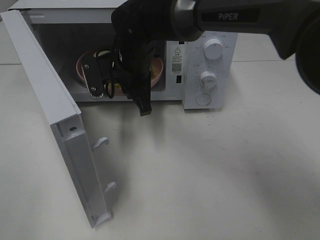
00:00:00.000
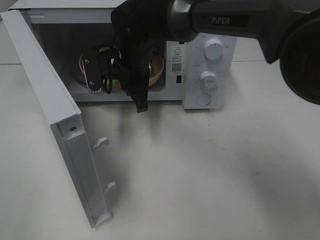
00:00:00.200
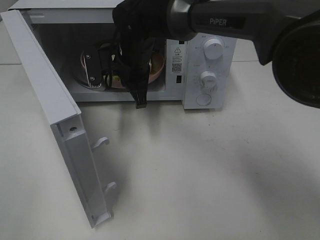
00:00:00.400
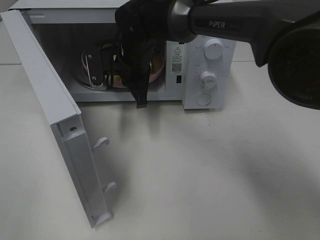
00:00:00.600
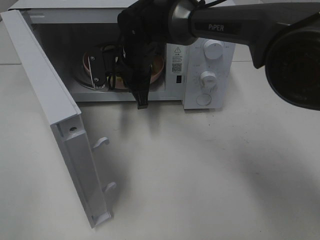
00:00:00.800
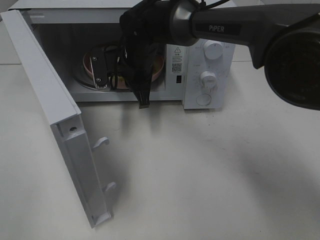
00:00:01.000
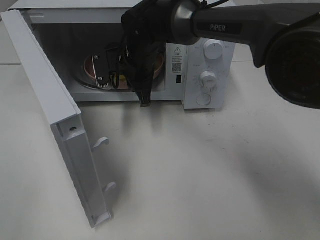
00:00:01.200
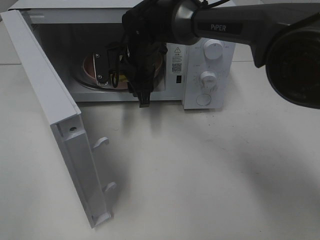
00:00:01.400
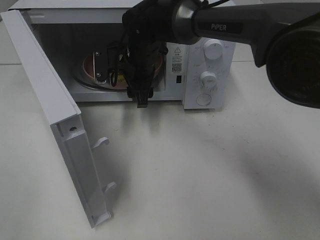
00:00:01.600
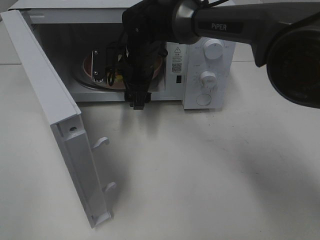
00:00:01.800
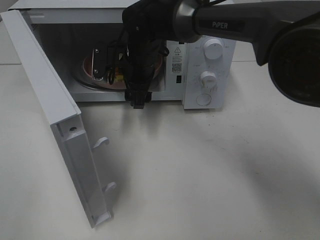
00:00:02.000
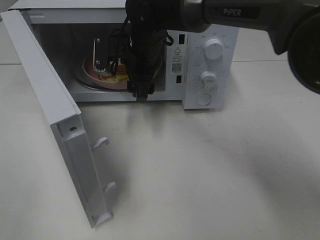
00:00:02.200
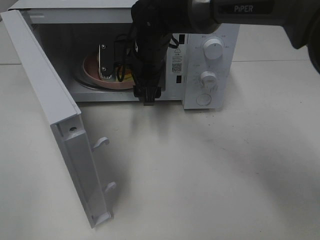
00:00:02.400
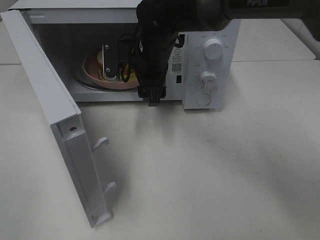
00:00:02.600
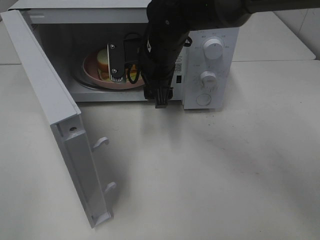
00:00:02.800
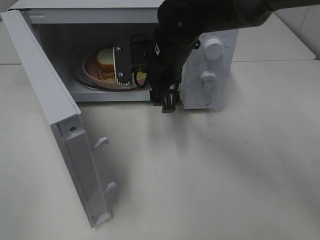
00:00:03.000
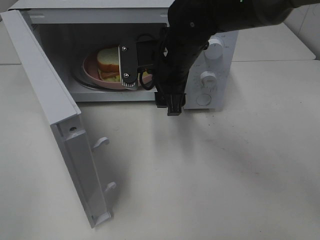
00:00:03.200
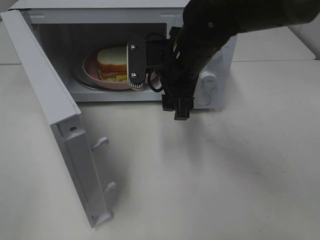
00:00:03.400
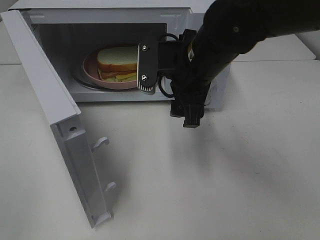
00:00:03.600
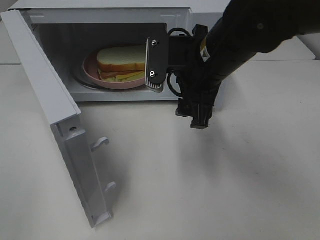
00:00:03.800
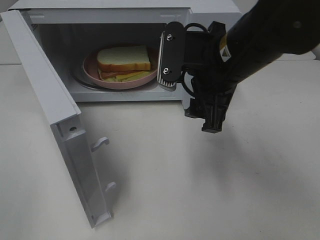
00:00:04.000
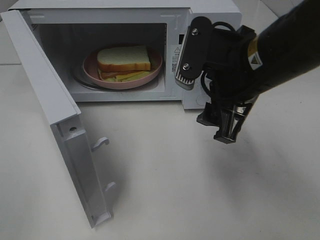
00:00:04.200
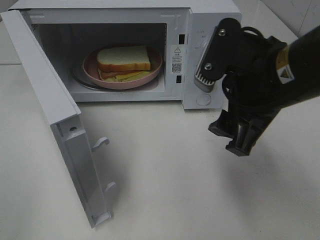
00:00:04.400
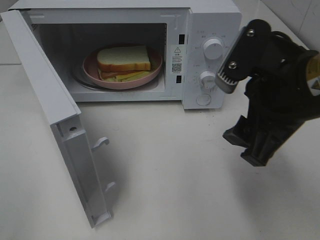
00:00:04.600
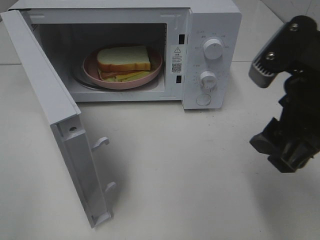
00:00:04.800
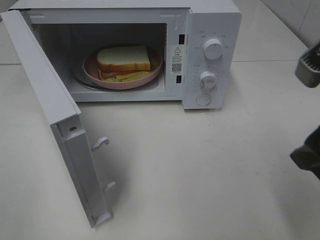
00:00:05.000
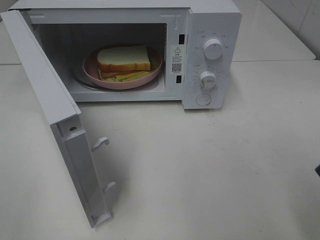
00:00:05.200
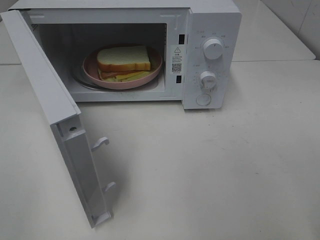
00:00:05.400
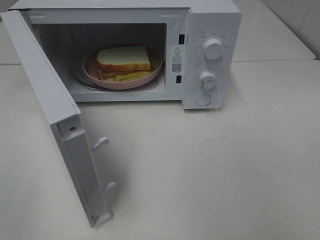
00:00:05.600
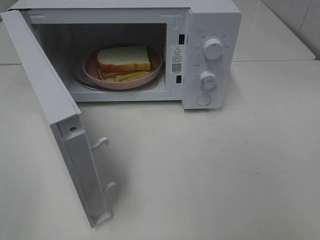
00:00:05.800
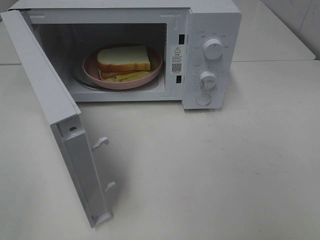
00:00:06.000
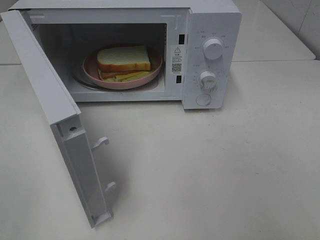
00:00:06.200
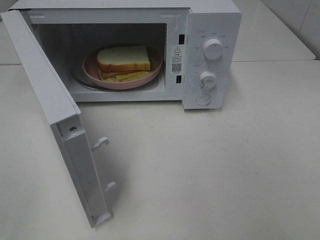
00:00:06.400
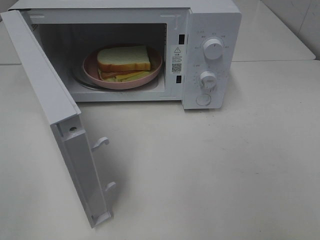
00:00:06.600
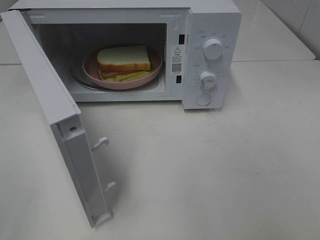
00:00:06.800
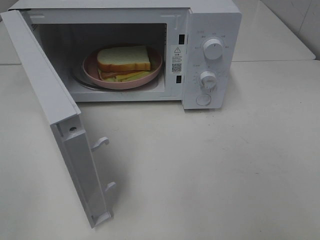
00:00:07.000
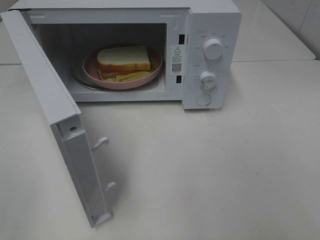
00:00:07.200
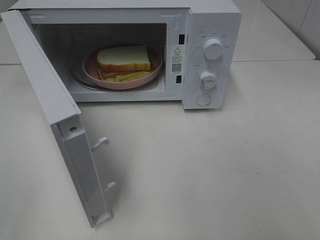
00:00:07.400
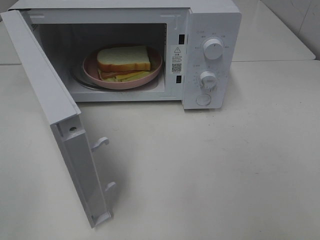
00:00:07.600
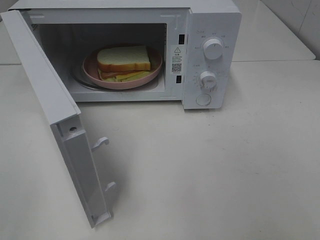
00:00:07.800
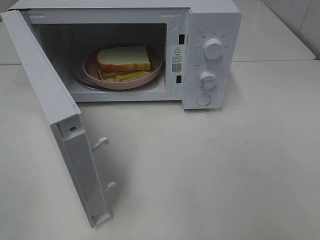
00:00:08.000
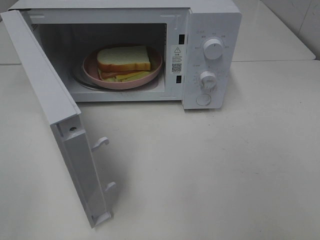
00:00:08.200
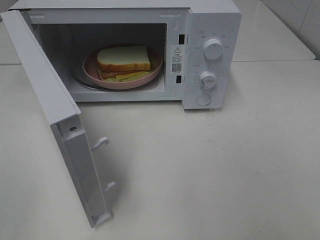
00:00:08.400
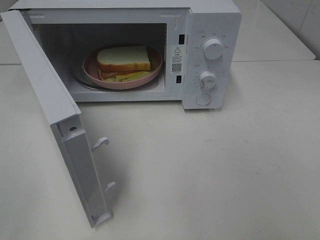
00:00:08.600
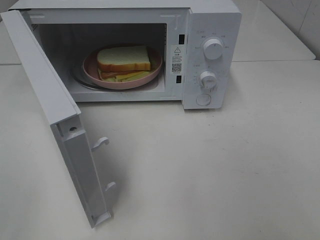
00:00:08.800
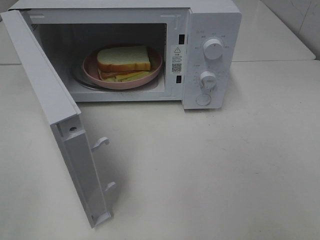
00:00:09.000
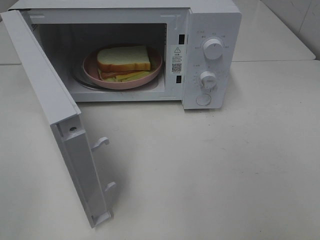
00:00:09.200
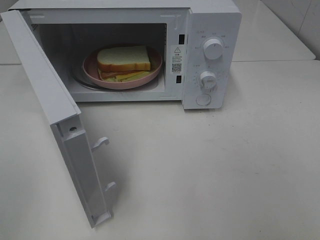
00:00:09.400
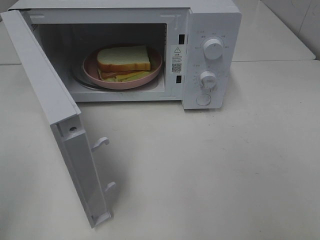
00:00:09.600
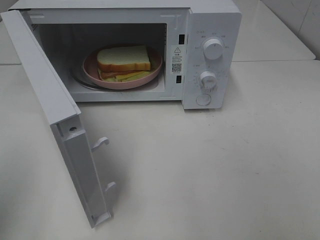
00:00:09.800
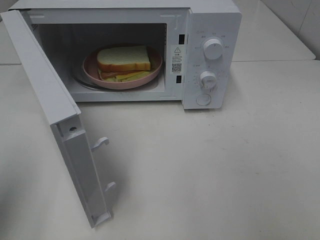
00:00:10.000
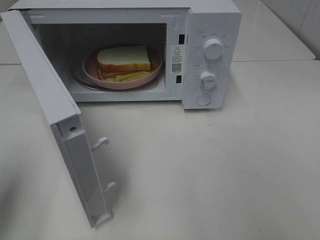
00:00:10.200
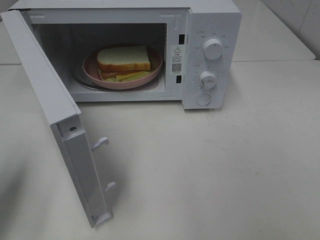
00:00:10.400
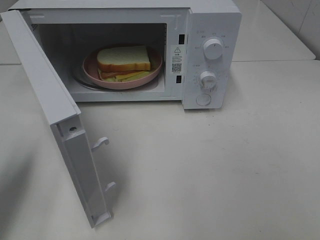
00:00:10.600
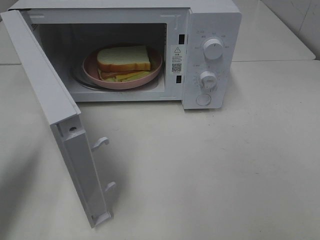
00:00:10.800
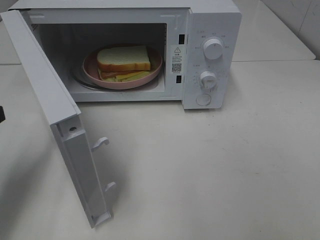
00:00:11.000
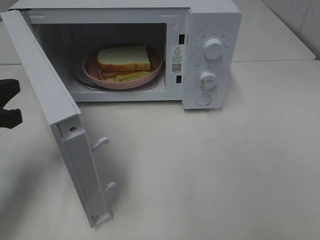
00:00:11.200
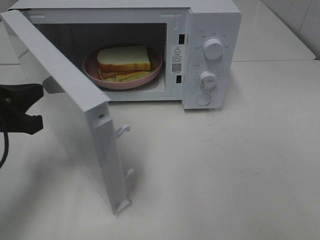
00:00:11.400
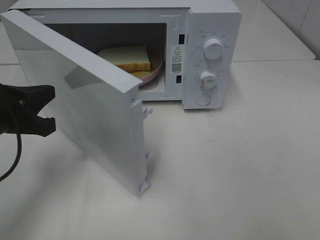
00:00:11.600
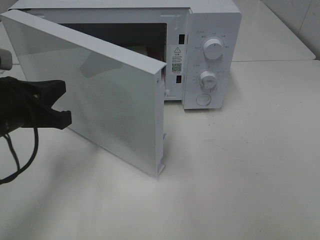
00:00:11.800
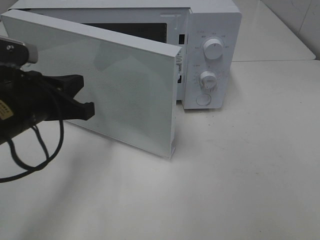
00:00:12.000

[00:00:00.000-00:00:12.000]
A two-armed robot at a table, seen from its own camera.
Task of the whole recording: Heat Sandwich.
Step, 00:00:00.000 to 00:00:02.400: Right hand: place the plate in the microwave.
00:00:00.000 to 00:00:01.600: The right gripper opens up.
00:00:01.600 to 00:00:03.000: The right gripper heads backward and to the right, covering some 10 cm.
00:00:03.000 to 00:00:04.400: The right gripper goes roughly 20 cm backward and to the right.
00:00:04.400 to 00:00:06.000: The right gripper is displaced backward and to the right by approximately 25 cm.
00:00:07.600 to 00:00:09.000: Neither gripper changes place.
00:00:09.000 to 00:00:10.400: The left gripper shifts approximately 15 cm forward, and closes its fingers.
00:00:10.400 to 00:00:12.000: The left gripper moves to the right, forward and downward, approximately 15 cm.

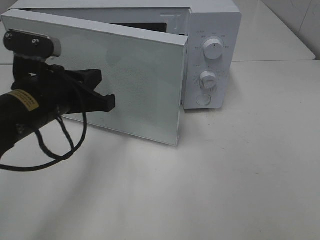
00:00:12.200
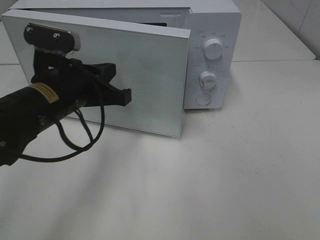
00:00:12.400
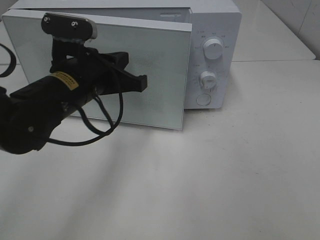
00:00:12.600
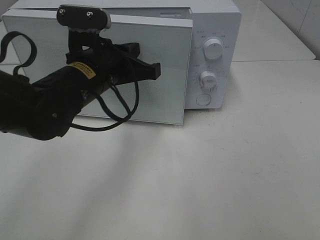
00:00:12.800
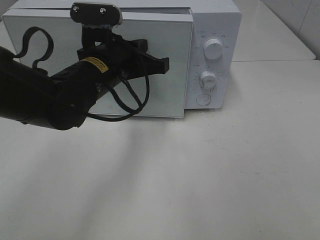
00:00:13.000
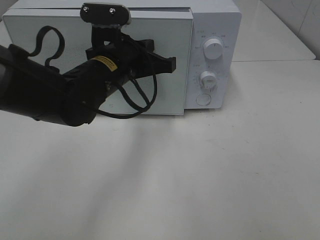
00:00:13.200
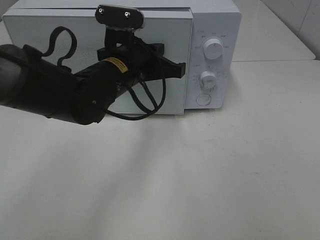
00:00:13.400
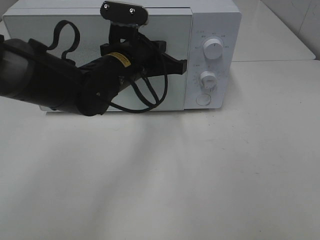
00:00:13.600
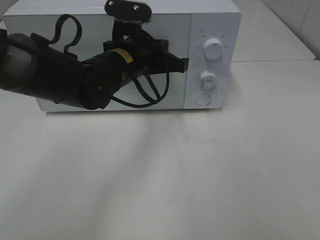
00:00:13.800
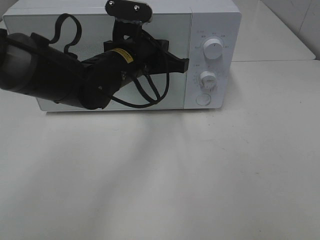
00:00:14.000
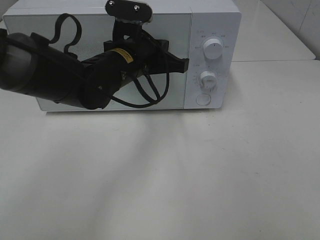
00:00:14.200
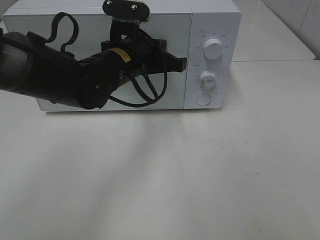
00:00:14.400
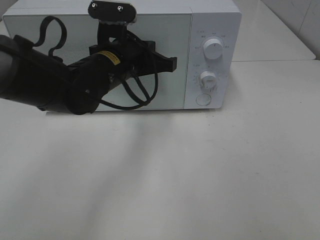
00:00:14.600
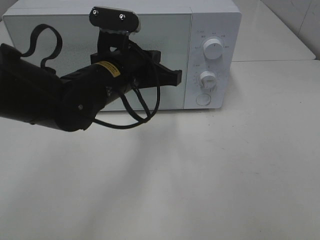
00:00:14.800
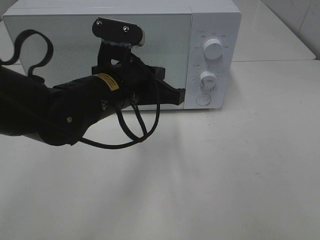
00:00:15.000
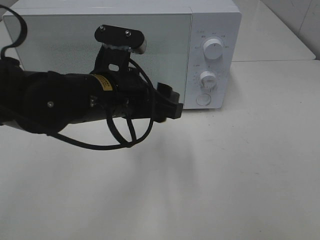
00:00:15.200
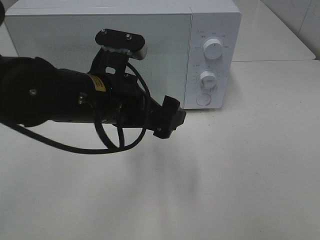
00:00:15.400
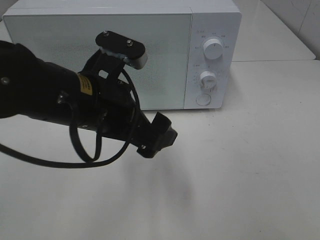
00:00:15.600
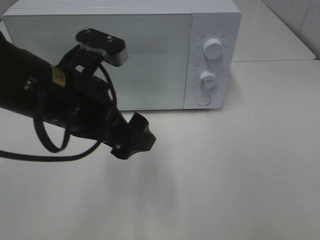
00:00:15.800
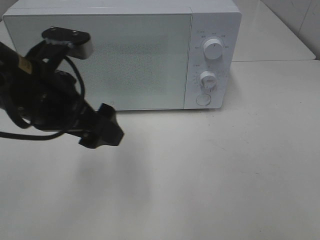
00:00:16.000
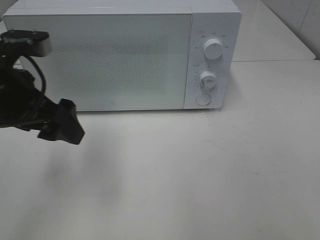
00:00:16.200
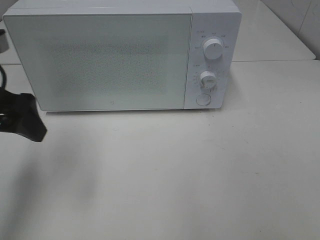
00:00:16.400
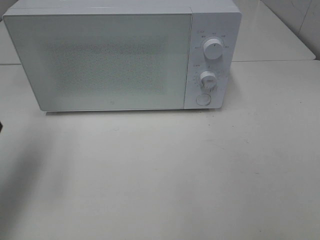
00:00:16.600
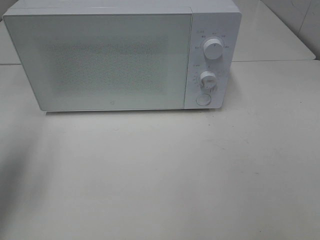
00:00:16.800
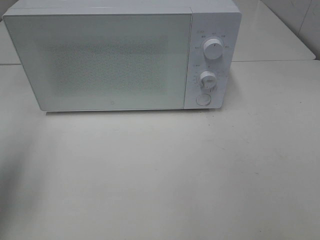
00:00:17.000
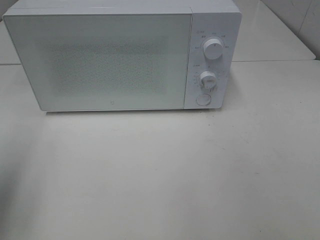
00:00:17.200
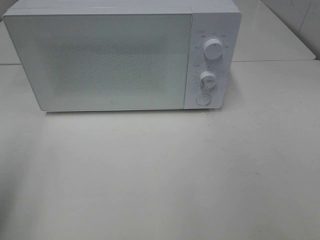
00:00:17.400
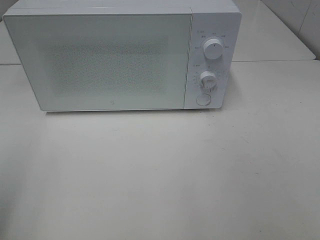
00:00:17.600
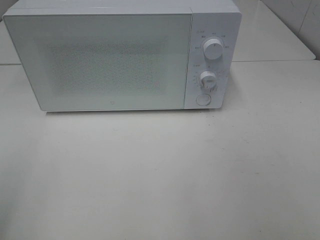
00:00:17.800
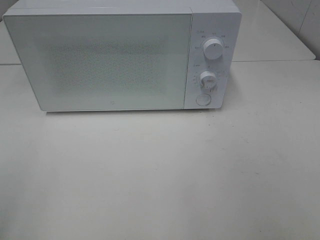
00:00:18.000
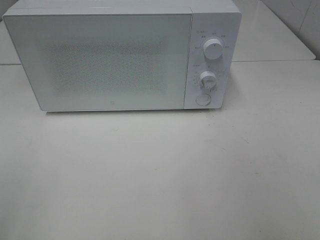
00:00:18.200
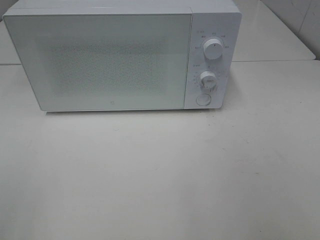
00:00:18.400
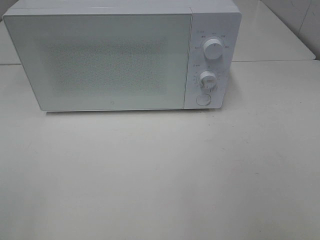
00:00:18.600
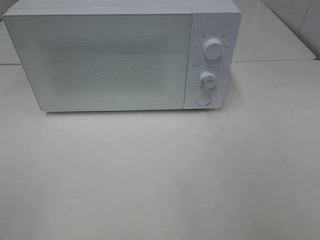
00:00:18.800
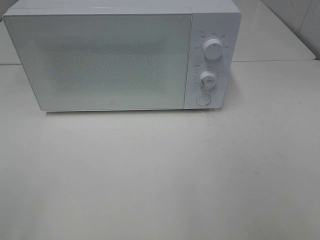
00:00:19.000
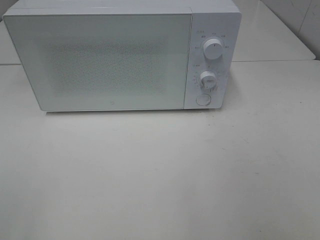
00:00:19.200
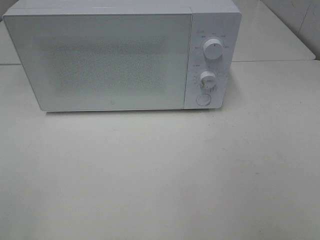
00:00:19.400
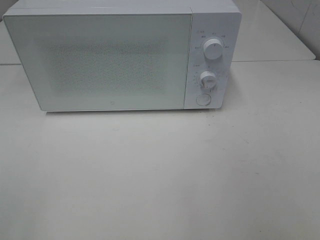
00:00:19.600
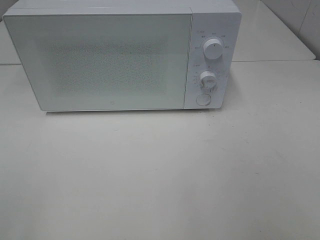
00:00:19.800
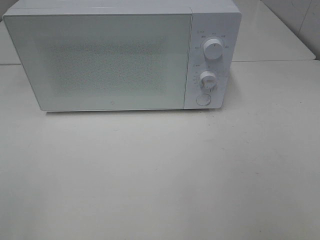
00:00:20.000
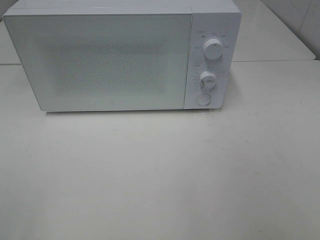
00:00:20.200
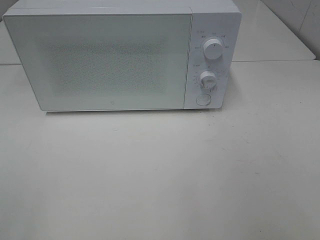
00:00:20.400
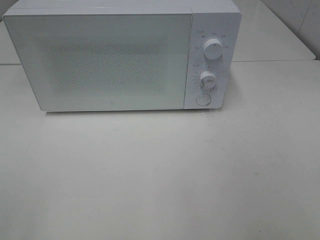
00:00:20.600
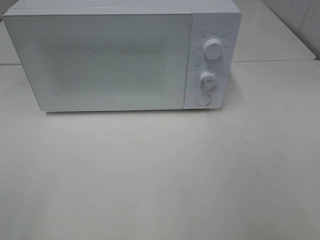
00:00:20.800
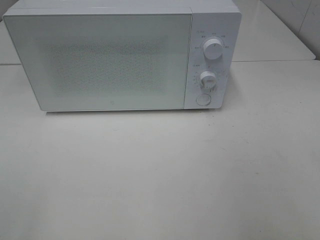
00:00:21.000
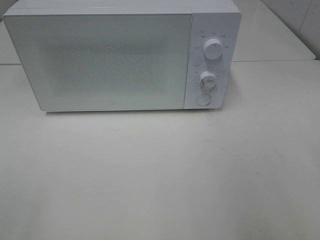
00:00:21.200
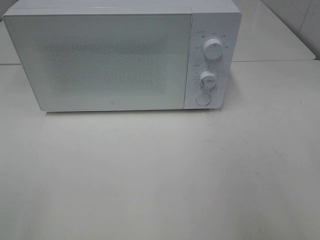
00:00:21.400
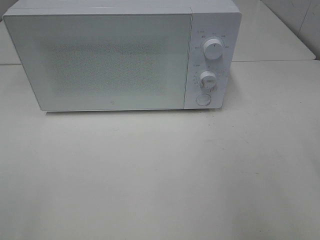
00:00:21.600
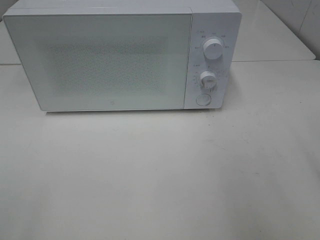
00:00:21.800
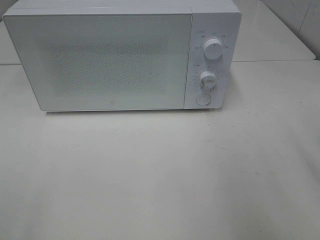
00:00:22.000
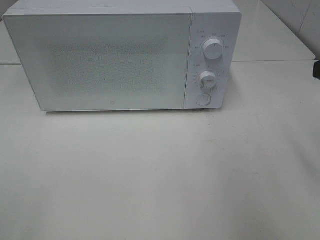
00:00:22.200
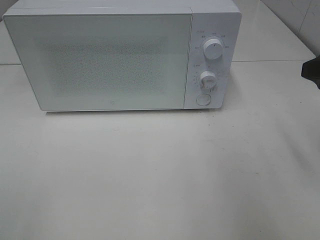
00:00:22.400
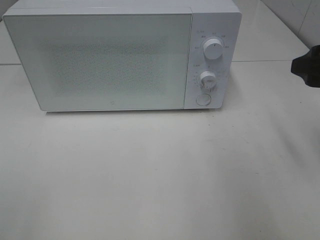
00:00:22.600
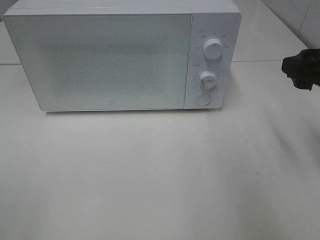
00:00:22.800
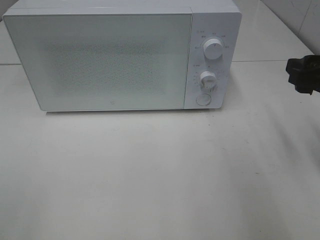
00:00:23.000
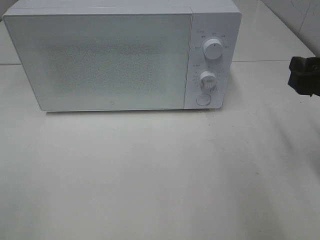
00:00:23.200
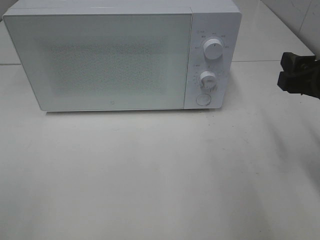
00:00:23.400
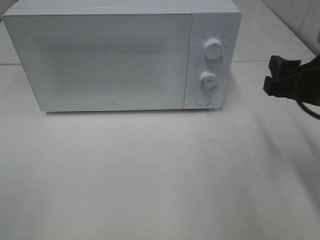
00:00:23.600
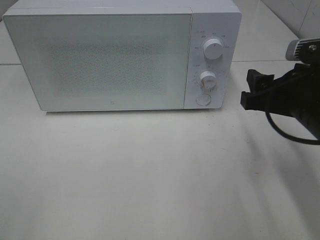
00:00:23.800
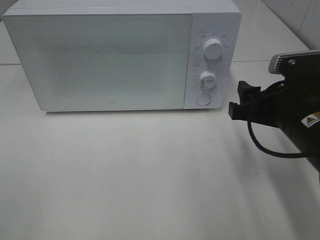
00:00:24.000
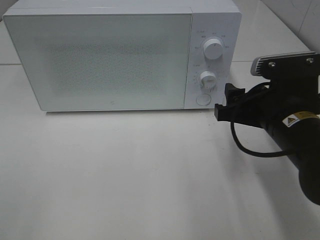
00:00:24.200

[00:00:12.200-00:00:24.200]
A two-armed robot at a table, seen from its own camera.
Task of the whole recording: Heat Sandwich.
Step, 00:00:12.200 to 00:00:14.200: Left hand: close the microwave door.
00:00:12.200 to 00:00:13.800: The left gripper moves to the right and forward, about 15 cm.
00:00:13.800 to 00:00:15.200: The left gripper goes some 10 cm backward, and opens its fingers.
00:00:15.200 to 00:00:16.600: The left gripper goes some 25 cm to the left.
00:00:16.600 to 00:00:18.200: The left gripper goes about 20 cm backward.
00:00:21.200 to 00:00:22.600: The right gripper is displaced forward by approximately 15 cm.
00:00:22.600 to 00:00:24.200: The right gripper travels to the left and downward by some 15 cm.
